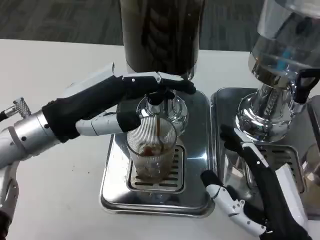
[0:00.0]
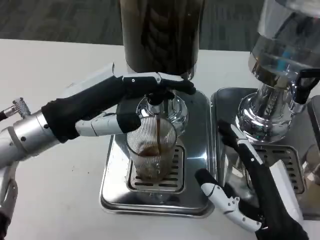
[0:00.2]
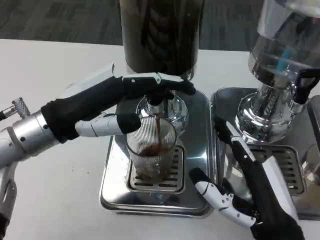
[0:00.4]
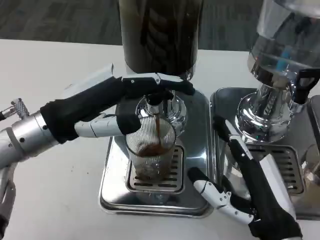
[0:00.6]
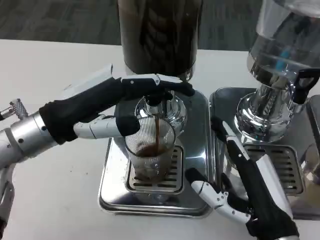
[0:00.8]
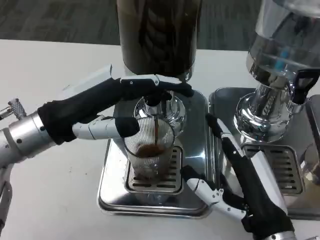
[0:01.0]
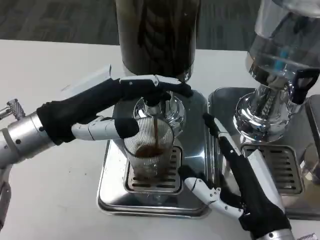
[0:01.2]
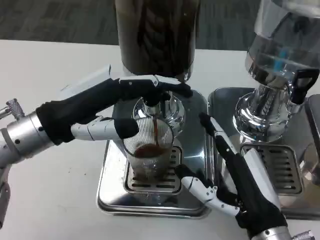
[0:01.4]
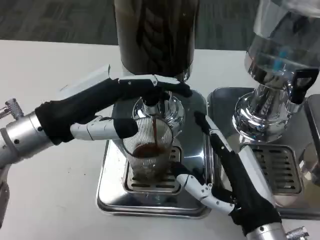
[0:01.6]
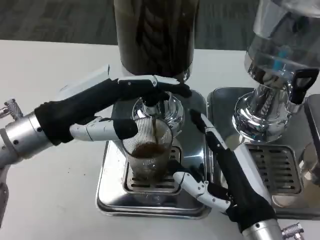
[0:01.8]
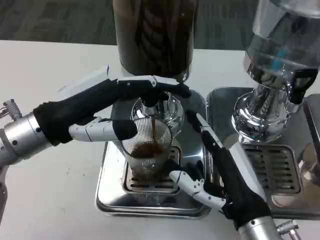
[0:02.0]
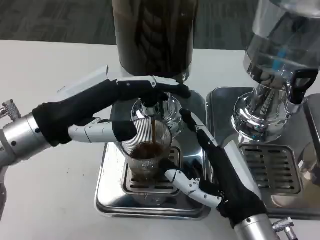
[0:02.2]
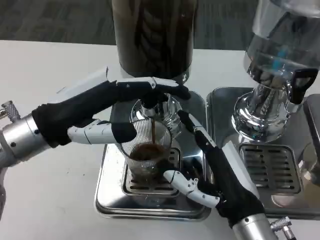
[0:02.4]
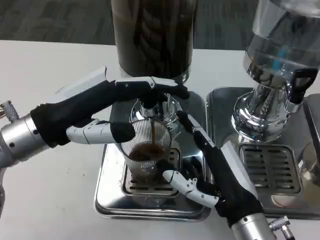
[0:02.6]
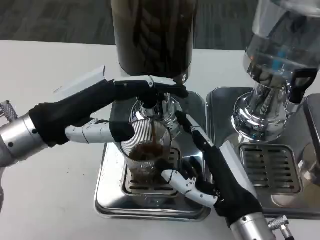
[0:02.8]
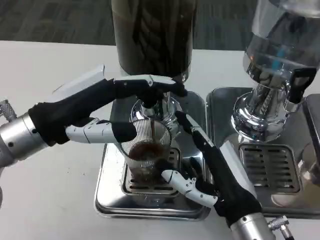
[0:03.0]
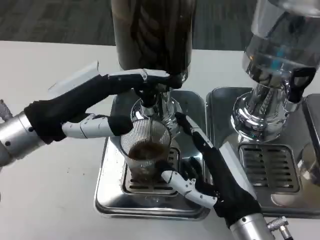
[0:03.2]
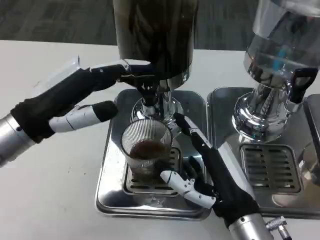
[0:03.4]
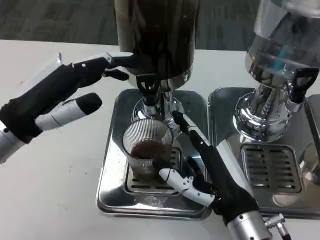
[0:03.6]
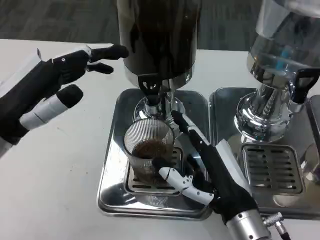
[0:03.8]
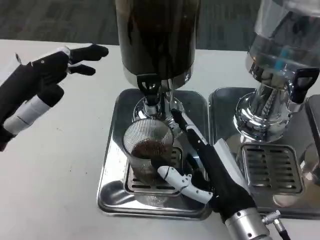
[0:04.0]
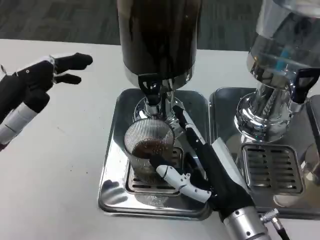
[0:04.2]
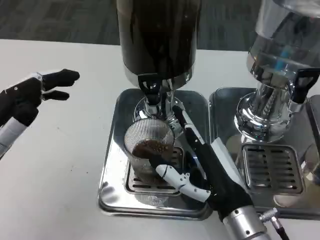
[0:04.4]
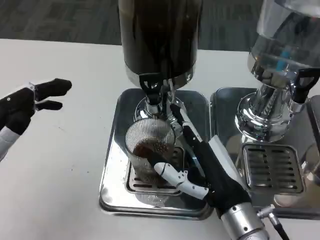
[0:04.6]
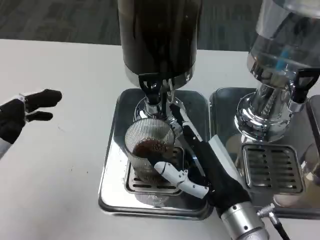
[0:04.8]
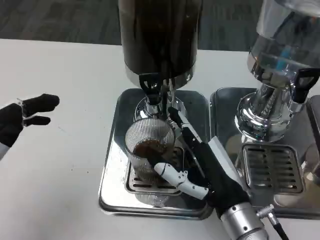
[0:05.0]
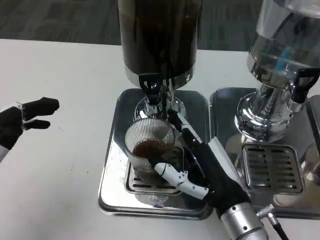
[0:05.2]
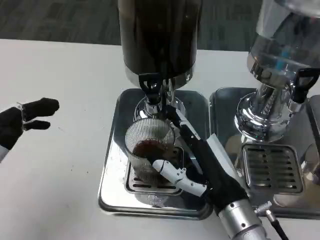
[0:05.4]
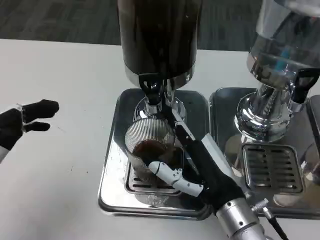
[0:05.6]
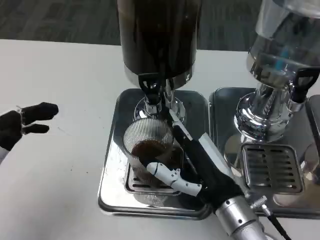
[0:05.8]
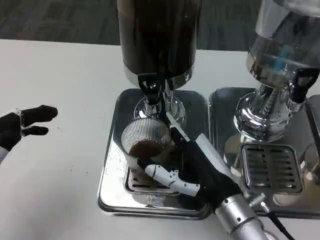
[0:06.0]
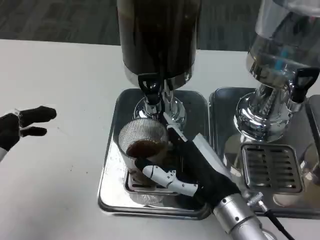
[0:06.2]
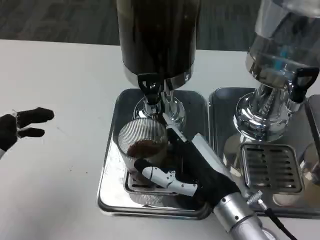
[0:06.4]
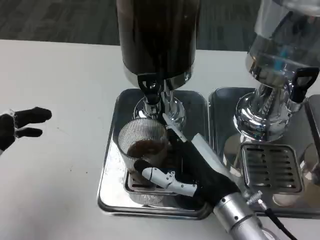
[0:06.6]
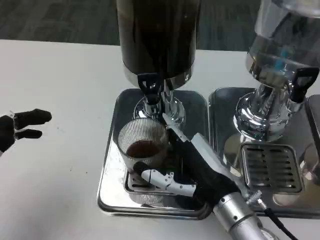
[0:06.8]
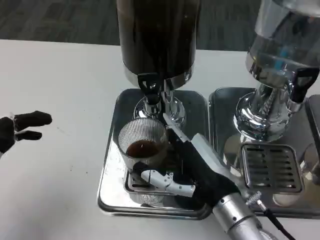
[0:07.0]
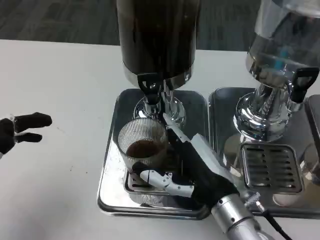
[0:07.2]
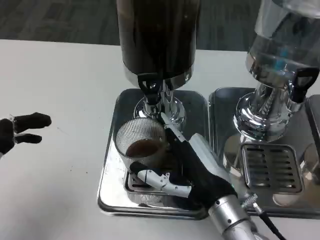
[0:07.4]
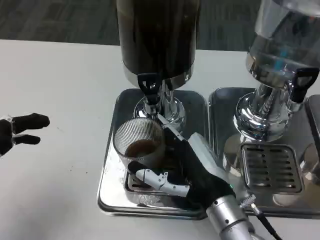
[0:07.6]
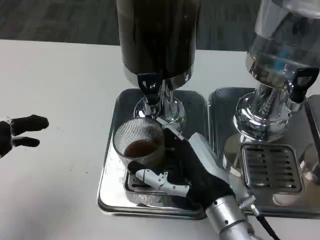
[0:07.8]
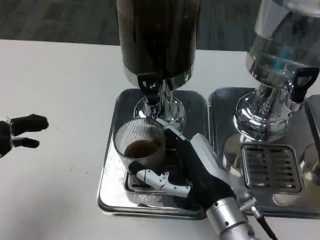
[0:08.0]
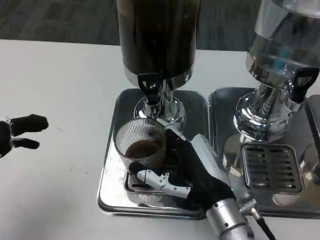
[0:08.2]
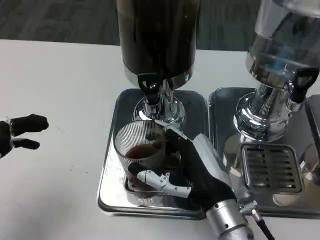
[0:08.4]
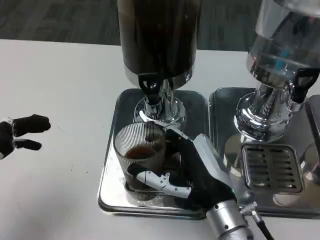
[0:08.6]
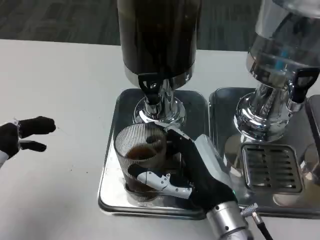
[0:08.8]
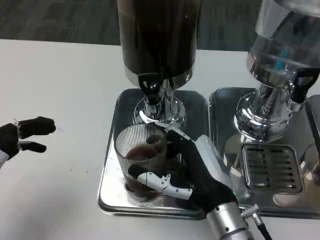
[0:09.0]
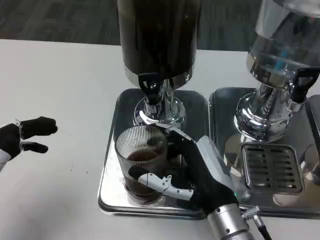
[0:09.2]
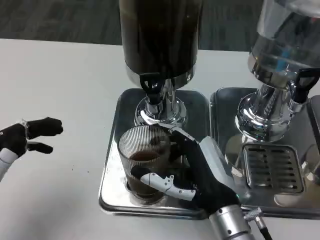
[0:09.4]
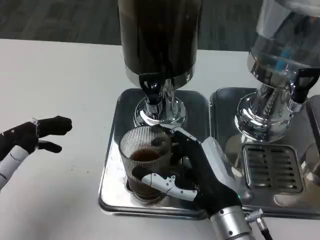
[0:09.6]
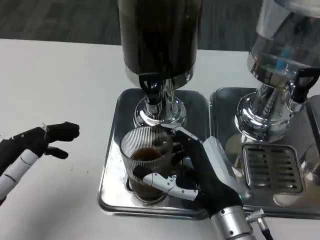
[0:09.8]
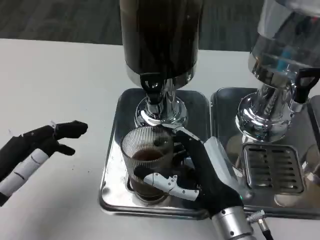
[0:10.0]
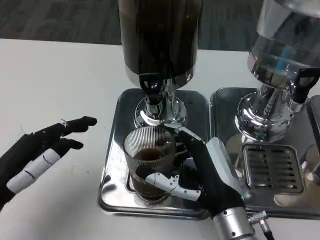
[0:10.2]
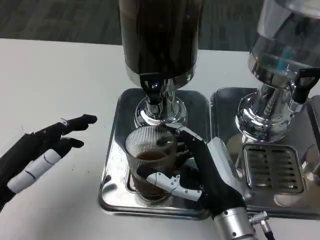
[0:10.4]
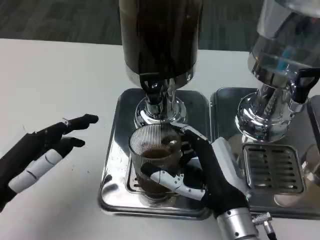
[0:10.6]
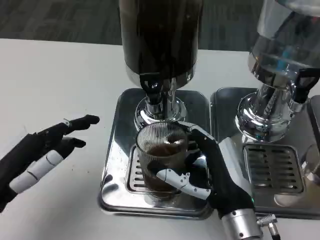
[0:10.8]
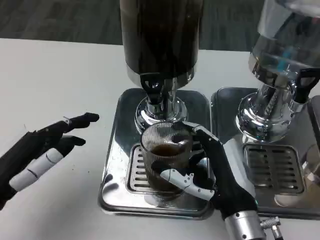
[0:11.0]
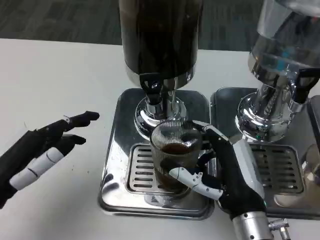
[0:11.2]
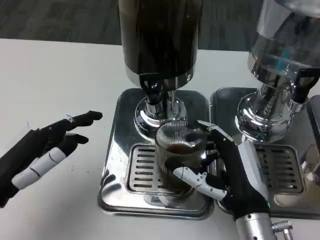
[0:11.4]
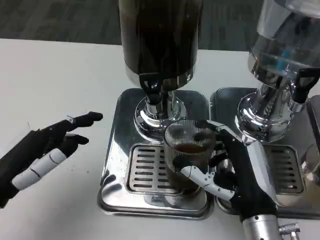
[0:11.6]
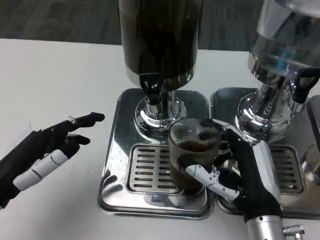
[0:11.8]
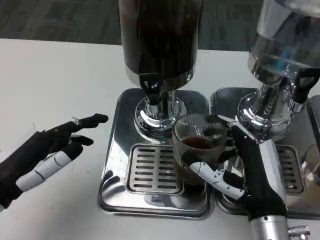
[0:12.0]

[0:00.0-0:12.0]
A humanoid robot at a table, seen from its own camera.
Task of the whole recording: Grasp the cup under the faucet to collect the drink, then remove the cup.
3.0 to 4.4 s: The left hand shifts some 10 cm to the left and backward.
4.4 to 7.6 s: There are only small adjustments of the hands.
7.6 to 9.0 s: There are only small adjustments of the hands.

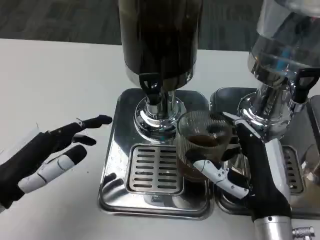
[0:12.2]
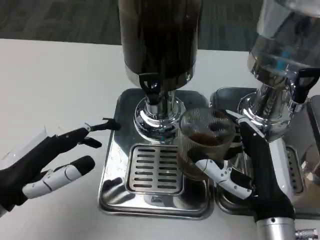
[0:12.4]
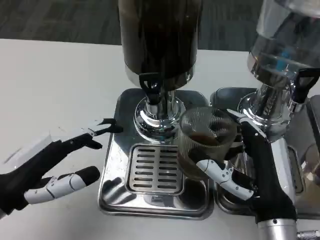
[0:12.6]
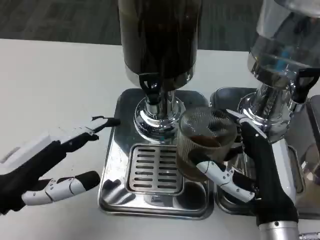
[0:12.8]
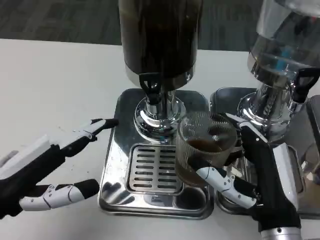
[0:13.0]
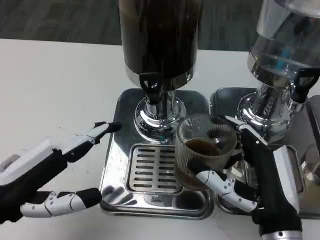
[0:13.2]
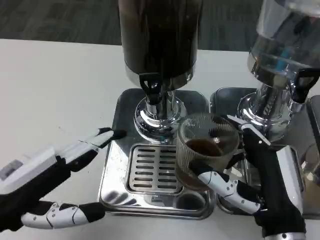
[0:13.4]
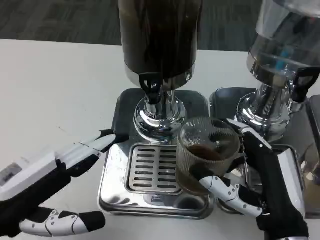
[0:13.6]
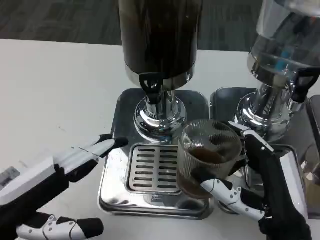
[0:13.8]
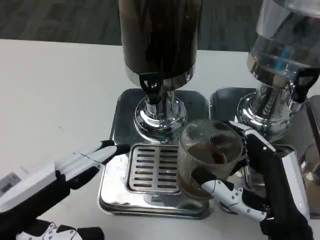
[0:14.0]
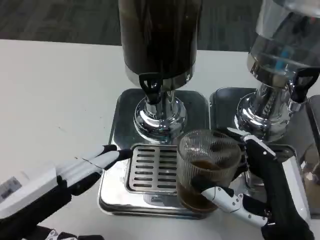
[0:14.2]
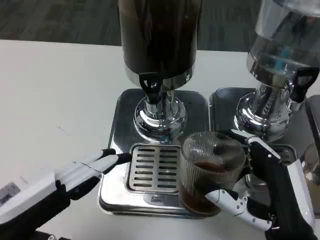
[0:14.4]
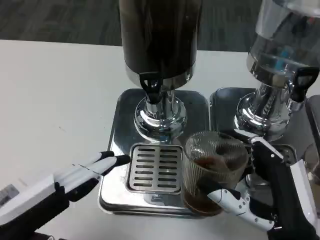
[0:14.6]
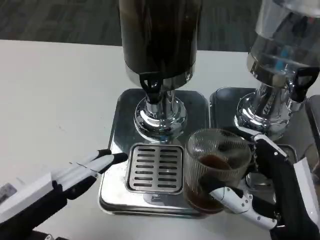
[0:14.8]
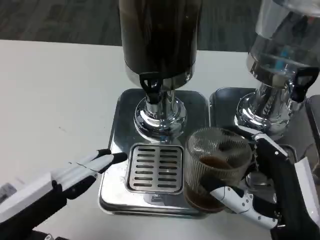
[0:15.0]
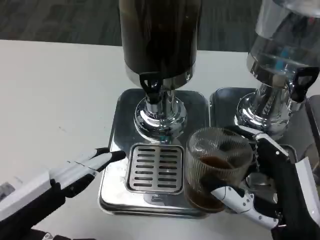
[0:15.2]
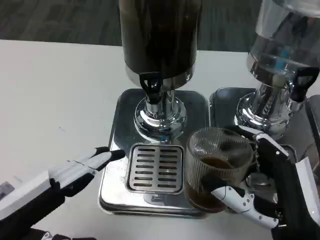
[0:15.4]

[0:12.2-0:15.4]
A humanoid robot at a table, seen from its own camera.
Task of the whole recording: Grasp the cup under the faucet to collect the drink, then remove the cup.
13.8 to 15.4 s: The hands move only a little.

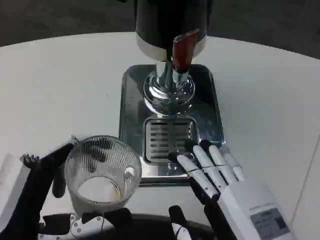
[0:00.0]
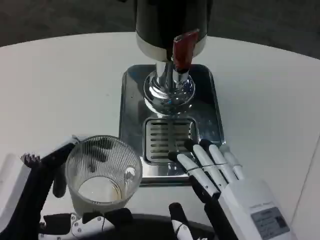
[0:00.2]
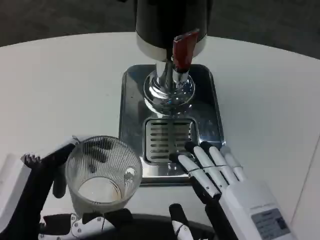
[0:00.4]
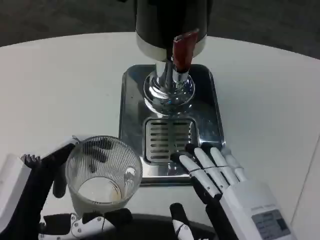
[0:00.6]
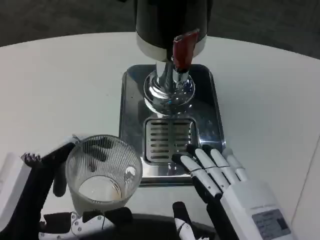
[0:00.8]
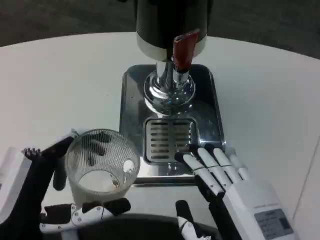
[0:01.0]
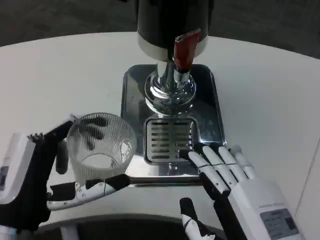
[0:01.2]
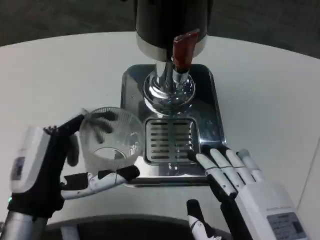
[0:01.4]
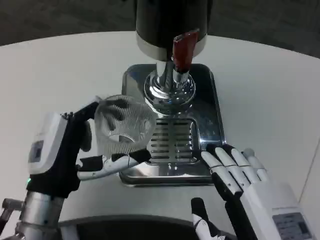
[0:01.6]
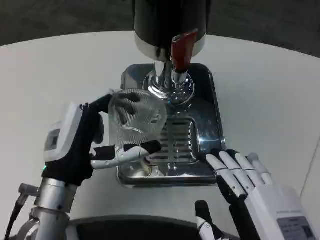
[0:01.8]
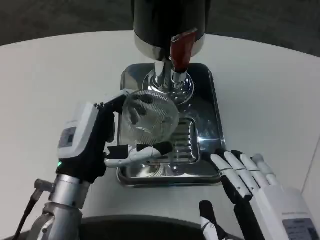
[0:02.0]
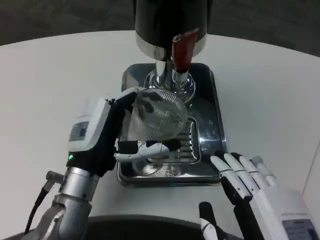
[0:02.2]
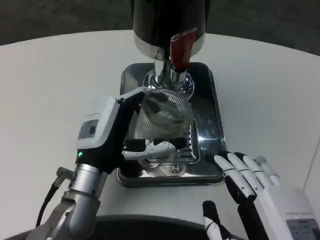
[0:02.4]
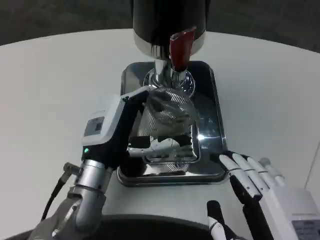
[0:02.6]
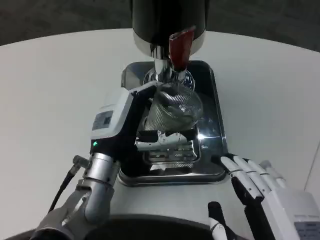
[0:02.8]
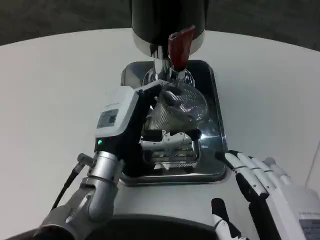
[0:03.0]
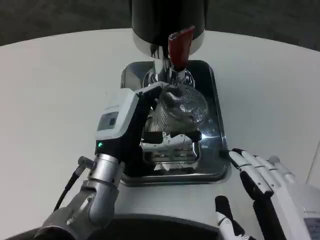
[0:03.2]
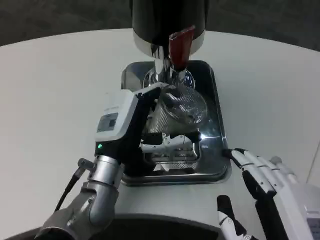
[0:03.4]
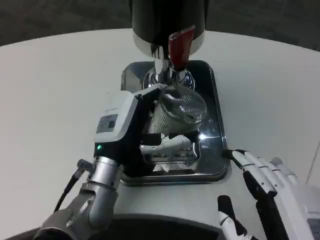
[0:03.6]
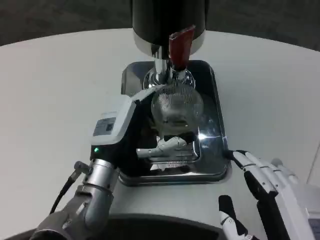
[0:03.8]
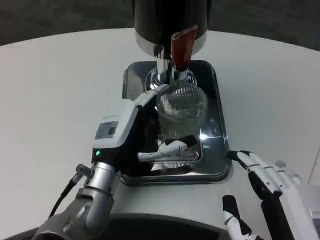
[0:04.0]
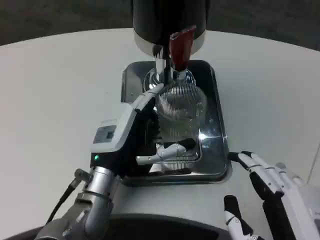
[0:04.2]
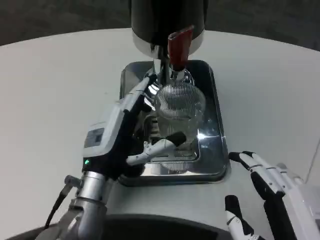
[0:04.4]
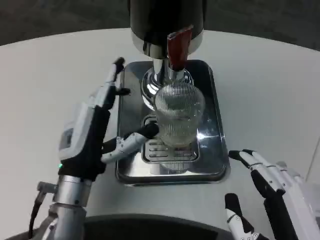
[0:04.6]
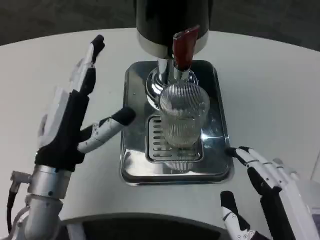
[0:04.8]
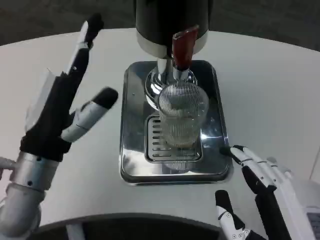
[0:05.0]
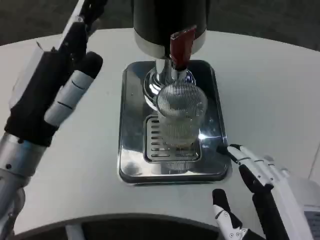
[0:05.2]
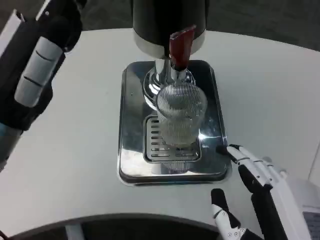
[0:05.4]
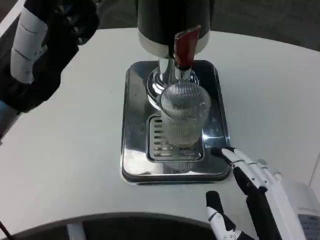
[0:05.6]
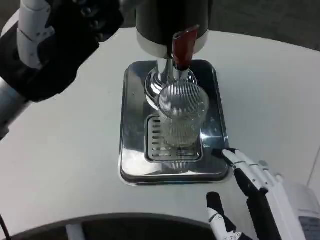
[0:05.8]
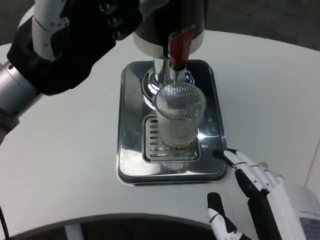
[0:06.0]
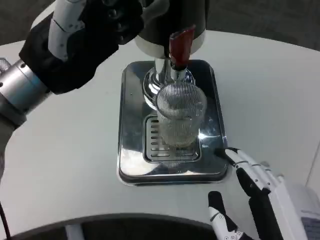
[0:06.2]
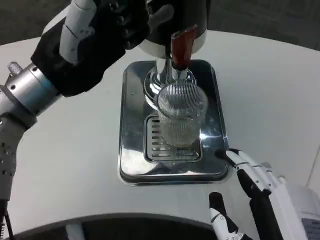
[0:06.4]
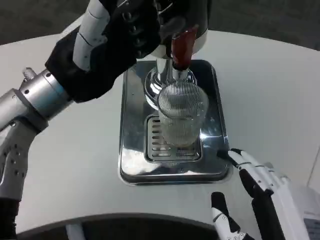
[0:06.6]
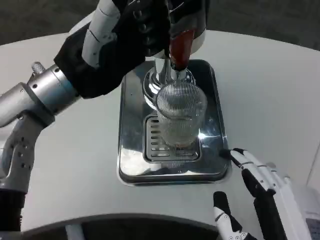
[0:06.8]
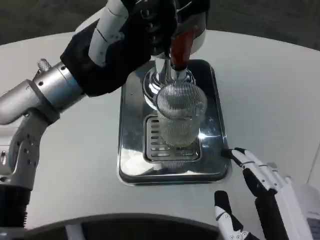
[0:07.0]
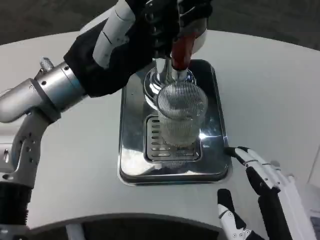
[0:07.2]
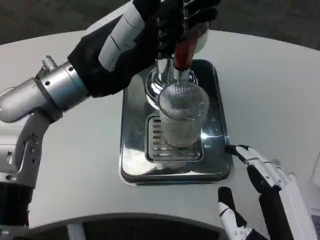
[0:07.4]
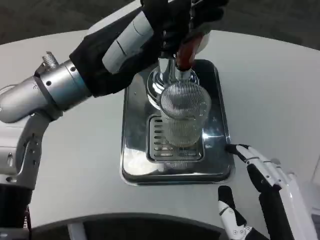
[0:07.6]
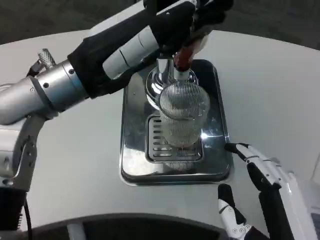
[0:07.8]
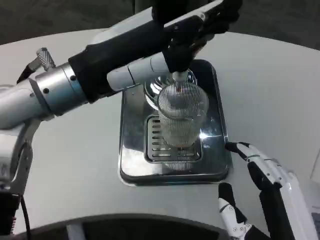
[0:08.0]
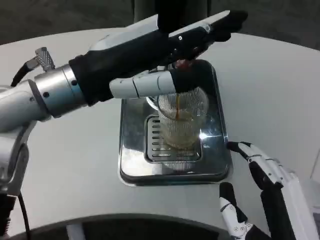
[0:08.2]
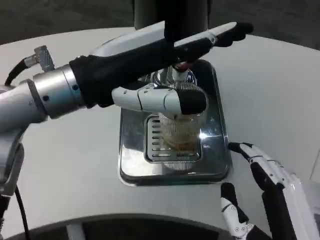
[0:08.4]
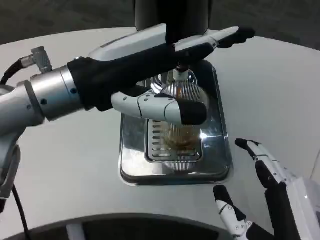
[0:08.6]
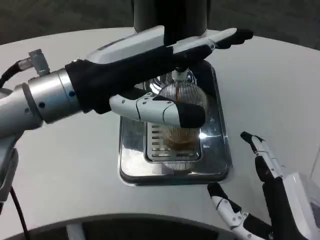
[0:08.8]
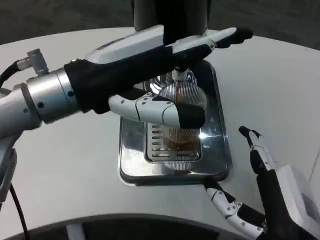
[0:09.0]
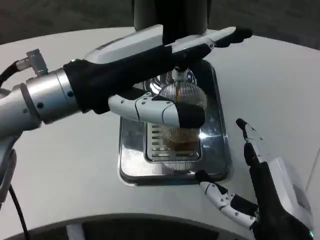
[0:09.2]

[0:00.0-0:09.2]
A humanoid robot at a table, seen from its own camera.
Task of the whole recording: Grasp the cup under the faucet to collect the drink, then remove the cup.
0.0 to 1.6 s: The left hand moves forward, about 10 cm.
1.6 to 3.0 s: The left hand is displaced forward and to the right by roughly 10 cm.
3.0 to 4.6 s: The left hand shifts by roughly 5 cm.
4.6 to 6.2 s: The left hand is displaced upward by about 20 cm.
7.6 to 9.2 s: The right hand is displaced forward by roughly 5 cm.
